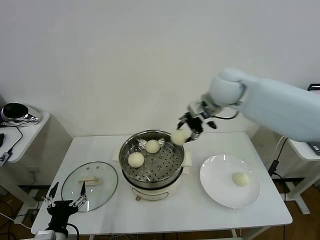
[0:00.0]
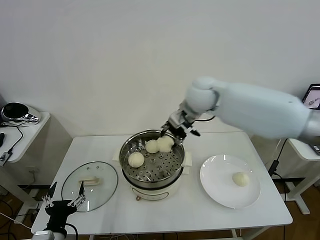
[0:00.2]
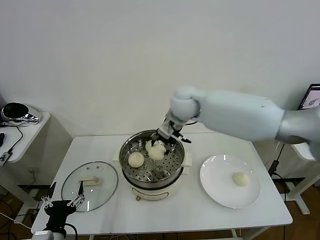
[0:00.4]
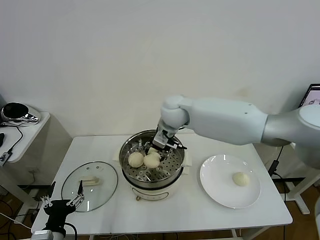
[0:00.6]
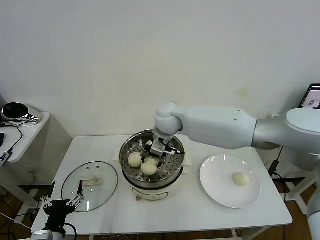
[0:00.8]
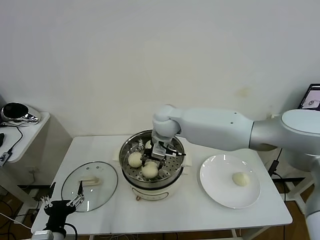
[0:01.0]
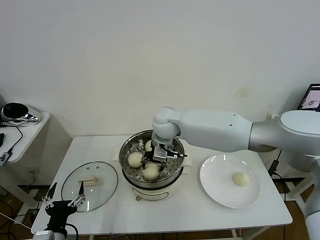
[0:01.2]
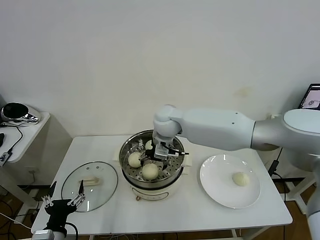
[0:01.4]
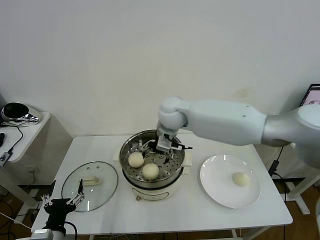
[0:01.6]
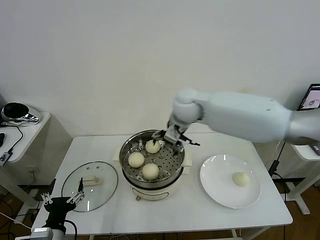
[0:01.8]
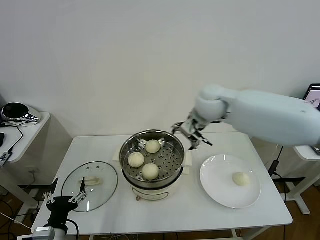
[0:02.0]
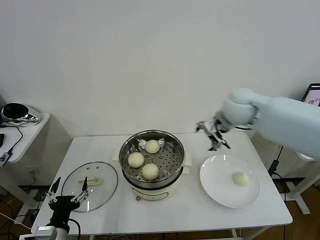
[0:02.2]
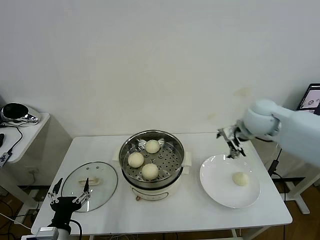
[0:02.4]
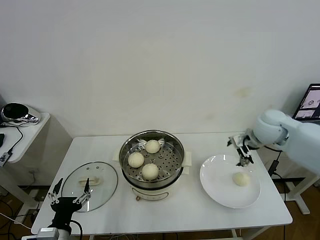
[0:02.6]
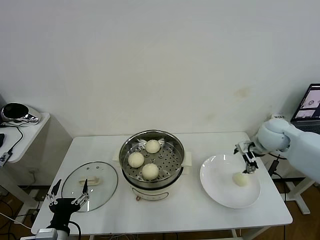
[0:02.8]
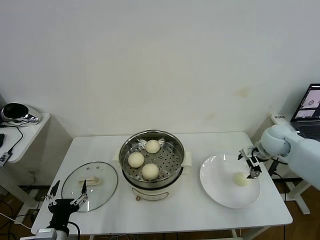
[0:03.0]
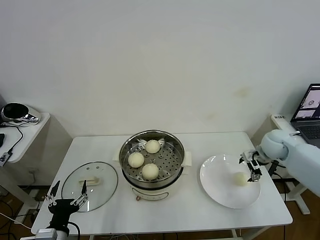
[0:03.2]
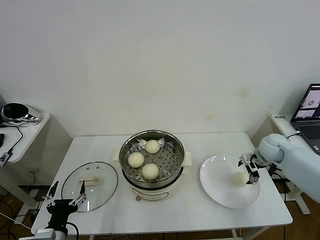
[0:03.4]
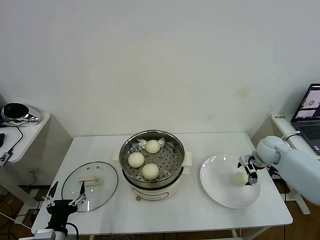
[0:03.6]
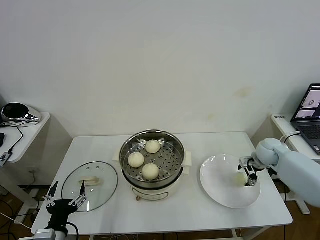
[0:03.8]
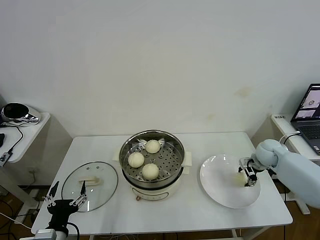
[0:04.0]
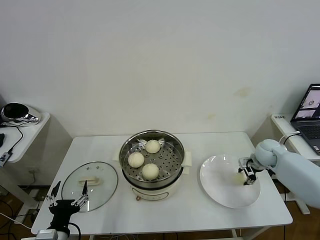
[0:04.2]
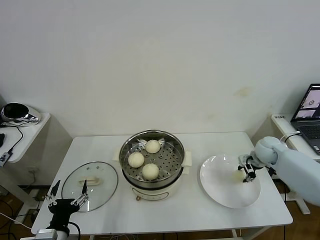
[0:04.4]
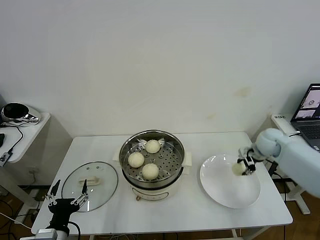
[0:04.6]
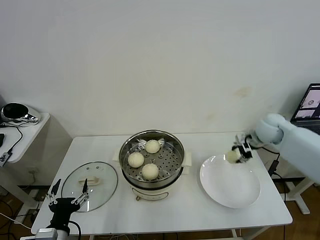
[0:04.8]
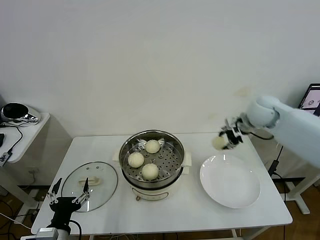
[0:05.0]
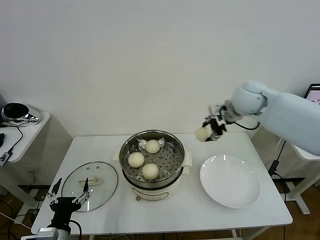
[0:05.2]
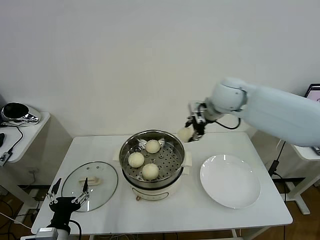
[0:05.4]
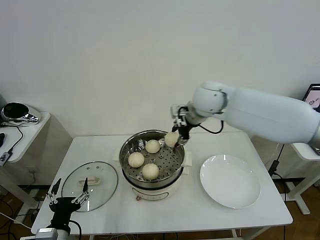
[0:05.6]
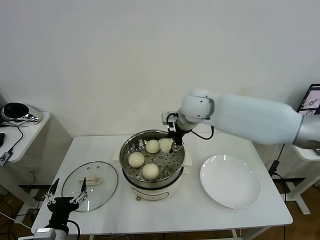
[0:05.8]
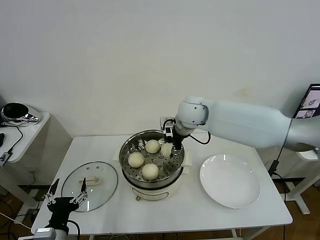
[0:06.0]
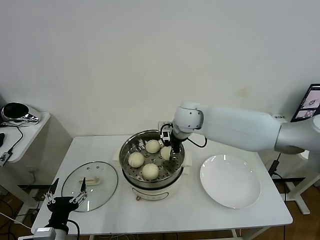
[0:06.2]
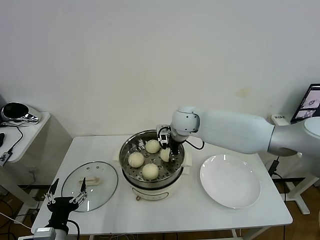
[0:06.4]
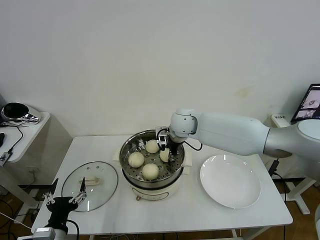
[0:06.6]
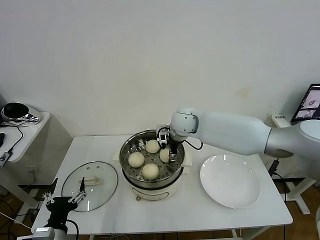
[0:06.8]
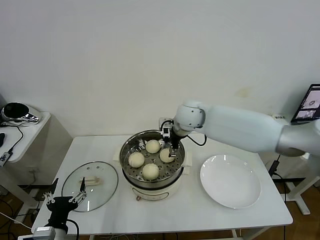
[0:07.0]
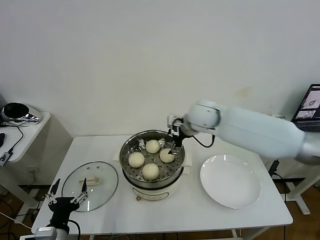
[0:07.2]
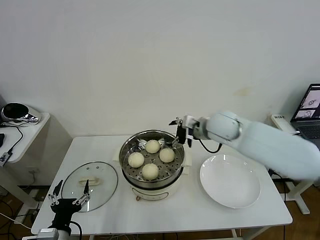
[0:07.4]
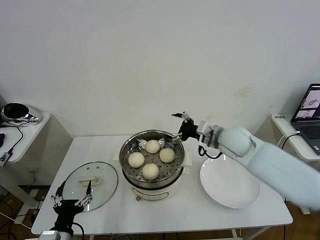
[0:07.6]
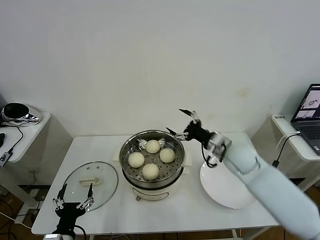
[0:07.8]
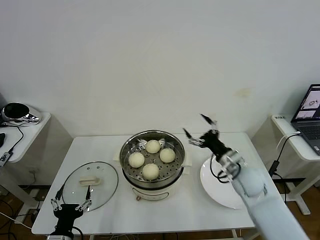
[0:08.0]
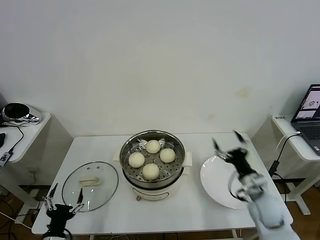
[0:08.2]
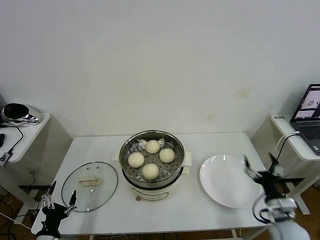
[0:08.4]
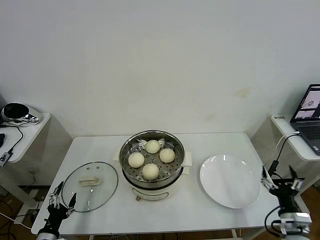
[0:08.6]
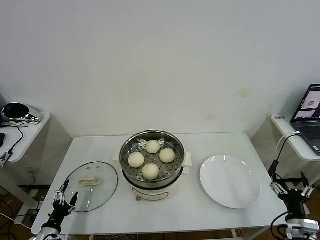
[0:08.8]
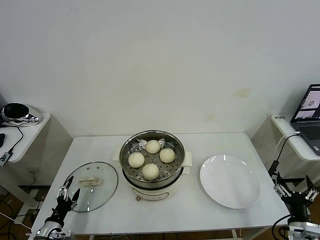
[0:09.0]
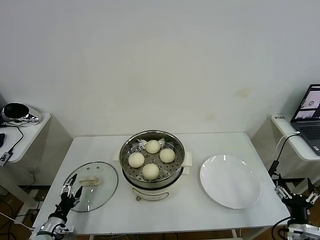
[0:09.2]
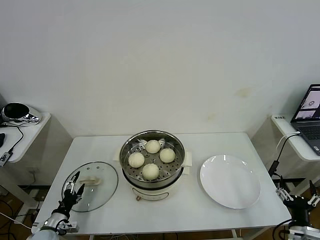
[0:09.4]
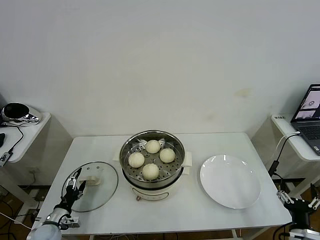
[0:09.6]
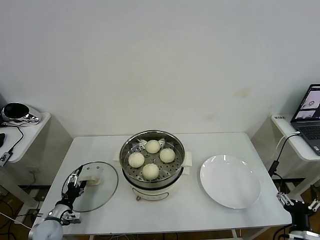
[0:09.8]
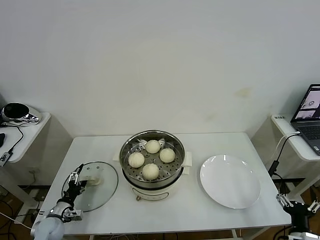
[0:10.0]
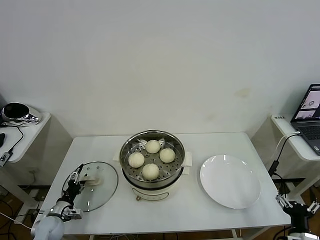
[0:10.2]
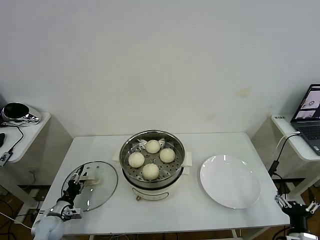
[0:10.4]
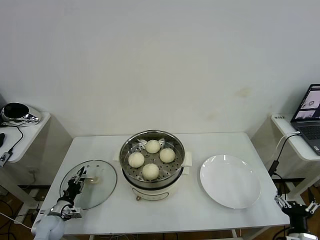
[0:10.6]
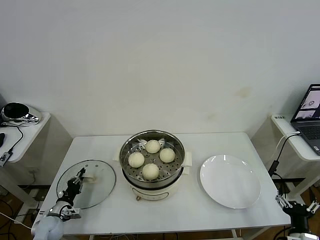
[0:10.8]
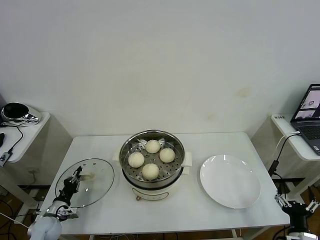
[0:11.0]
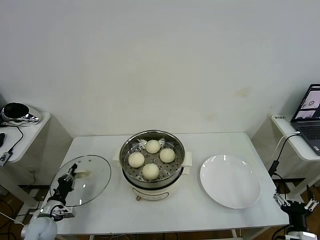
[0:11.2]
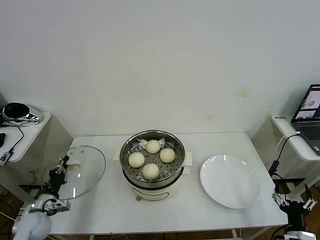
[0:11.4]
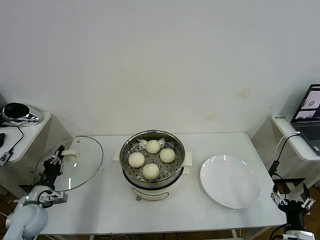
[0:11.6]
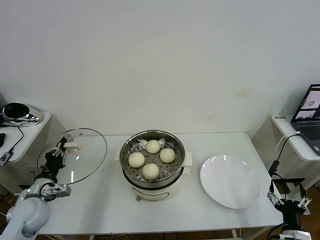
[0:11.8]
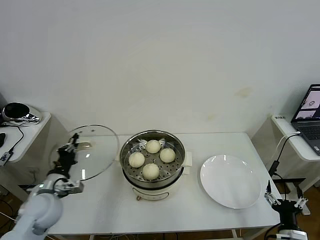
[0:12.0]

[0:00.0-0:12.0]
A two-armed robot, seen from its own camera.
Task of the whole recording: take steamed baozi put them in steamer then cover it.
Step, 0:00.0 to 0:01.4: Place the baozi on the steamer with right gripper.
Step, 0:01.6 to 0:04.0: Grasp the baozi in the plate with right gripper.
Step, 0:04.4 to 0:06.8: Place the baozi on the steamer with right gripper.
Step, 0:07.0 to 0:11.0: Grasp the pot lid with left gripper.
0:00.0 to 0:01.6: The right gripper goes some 15 cm to the left and downward, and opens.
0:01.6 to 0:03.0: The right gripper travels to the right by roughly 35 cm.
0:03.0 to 0:04.4: The right gripper travels downward by approximately 5 cm, and closes.
0:04.4 to 0:06.0: The right gripper goes roughly 35 cm to the left and upward.
0:06.0 to 0:07.6: The right gripper shifts approximately 15 cm to the right, backward and downward, and opens up.
0:07.6 to 0:09.0: The left gripper shifts approximately 20 cm to the left, downward and forward. Meanwhile the right gripper goes approximately 40 cm backward, downward and to the right.
0:09.0 to 0:10.4: The left gripper moves forward, roughly 10 cm, and closes its fingers.
0:10.4 to 0:12.0: The left gripper goes roughly 20 cm upward, and closes its fingers.

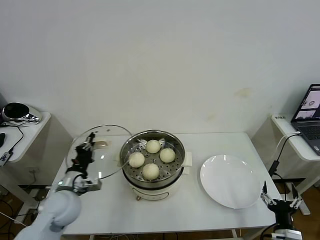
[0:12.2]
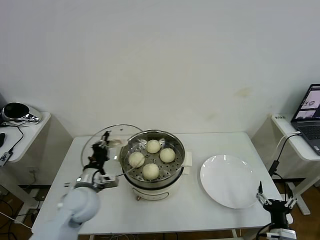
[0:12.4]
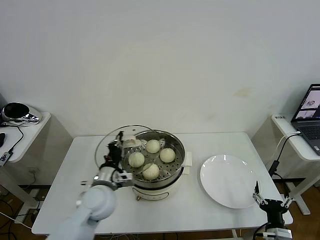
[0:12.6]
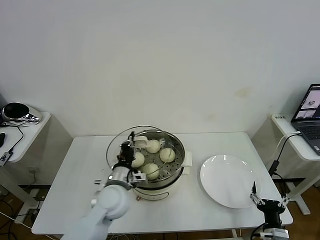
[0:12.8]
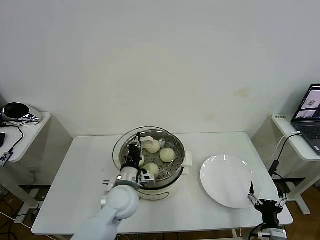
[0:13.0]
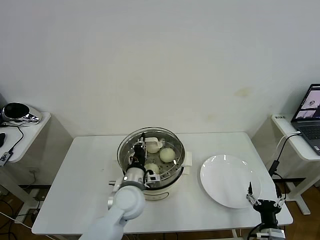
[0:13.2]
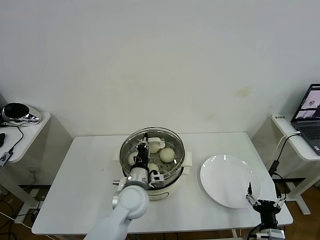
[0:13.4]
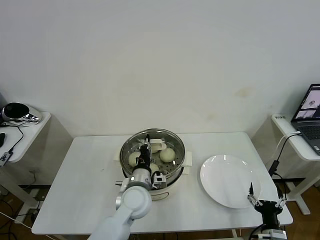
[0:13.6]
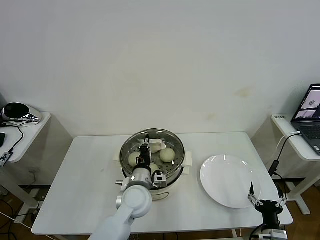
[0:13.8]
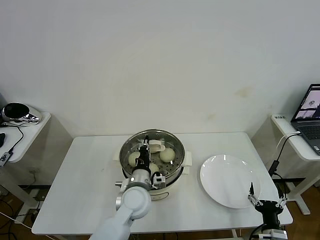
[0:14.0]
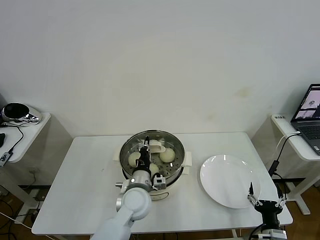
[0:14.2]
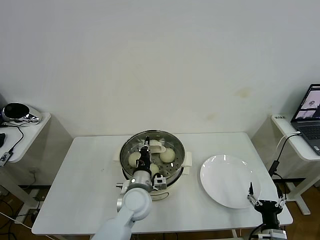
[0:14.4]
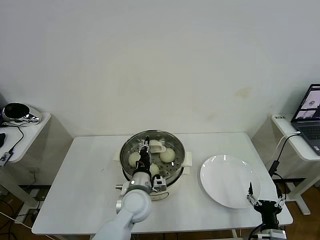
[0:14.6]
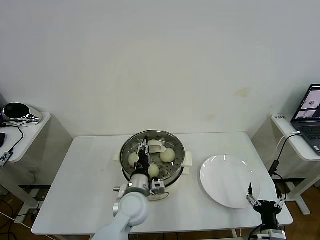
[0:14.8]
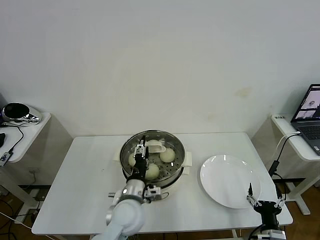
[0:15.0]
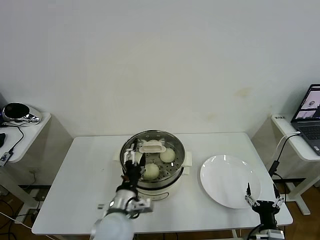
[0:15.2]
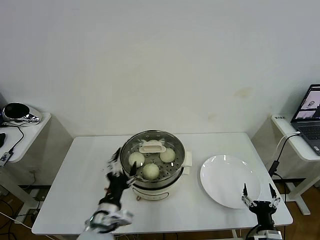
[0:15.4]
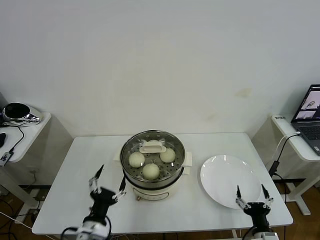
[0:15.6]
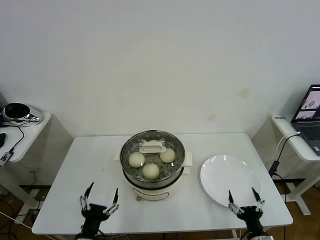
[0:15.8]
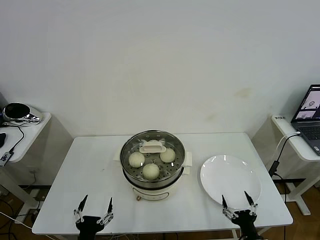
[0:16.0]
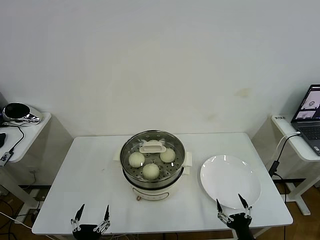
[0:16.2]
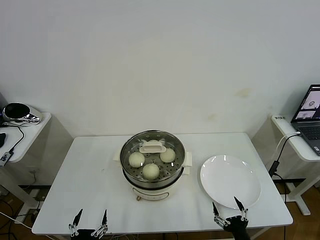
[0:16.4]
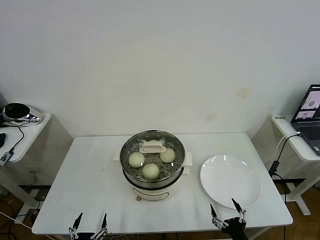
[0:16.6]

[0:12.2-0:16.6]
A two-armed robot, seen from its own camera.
Task of the whole recording: take steamed baozi put them in steamer then cover it.
Step, 0:12.2 to 0:14.8: Place the pot lid on the steamer with left gripper.
0:12.2 to 0:13.6: The left gripper is displaced to the right by about 20 cm.
0:13.6 to 0:15.2: The left gripper heads backward, covering about 10 cm, and opens its fingers.
0:15.2 to 0:16.6: The left gripper goes about 25 cm backward, to the left and downward. The right gripper travels to the left by some 5 cm.
